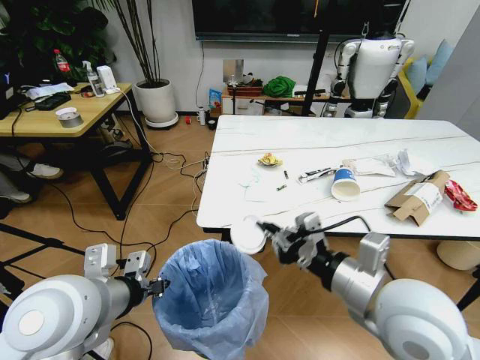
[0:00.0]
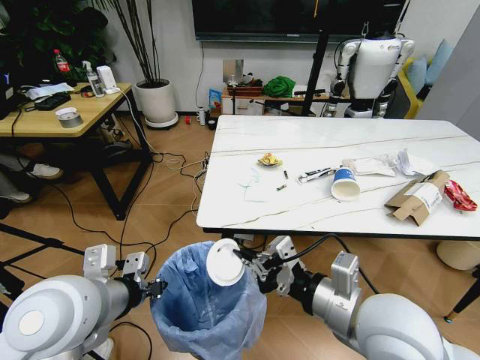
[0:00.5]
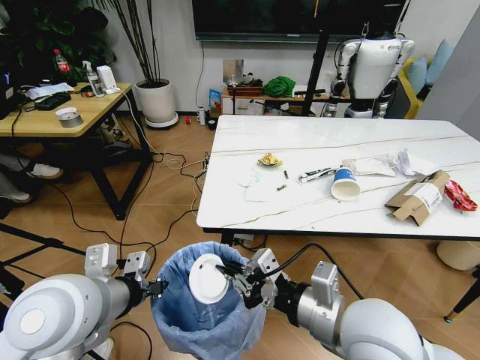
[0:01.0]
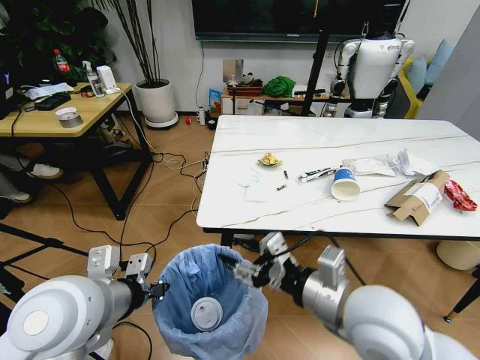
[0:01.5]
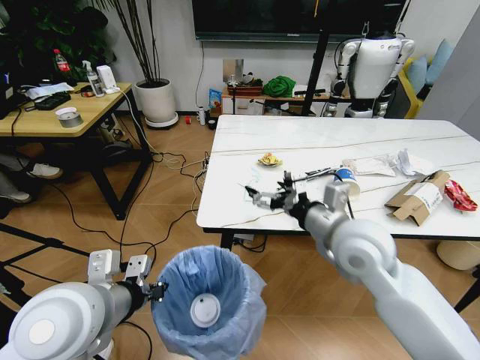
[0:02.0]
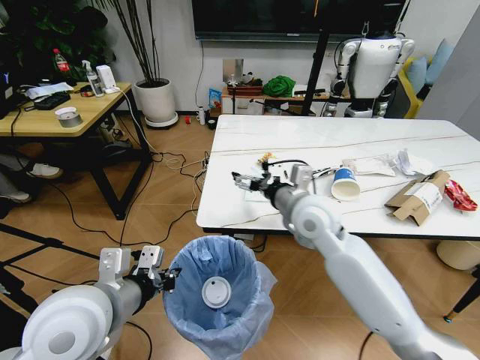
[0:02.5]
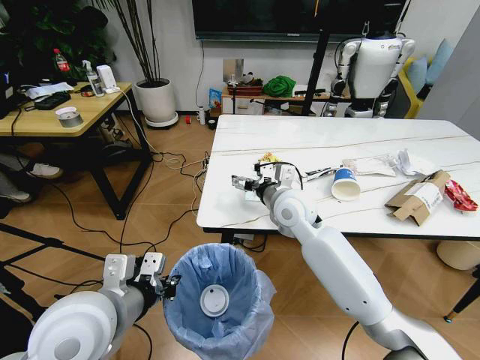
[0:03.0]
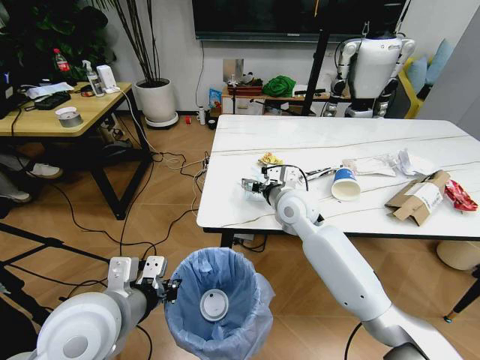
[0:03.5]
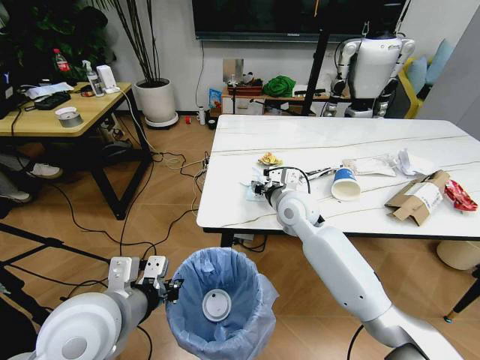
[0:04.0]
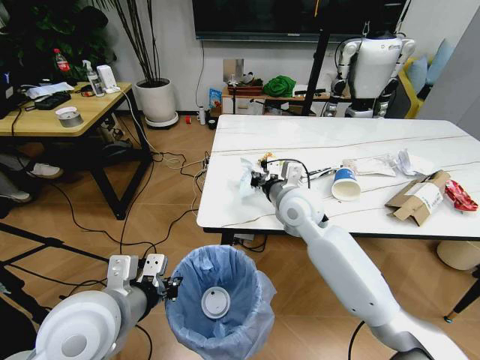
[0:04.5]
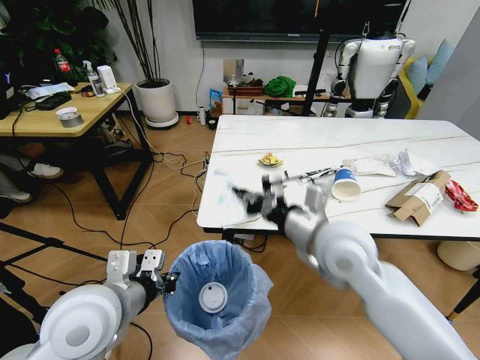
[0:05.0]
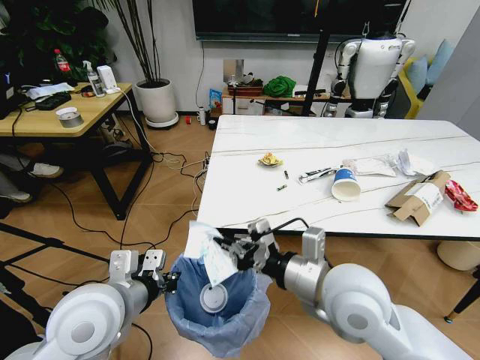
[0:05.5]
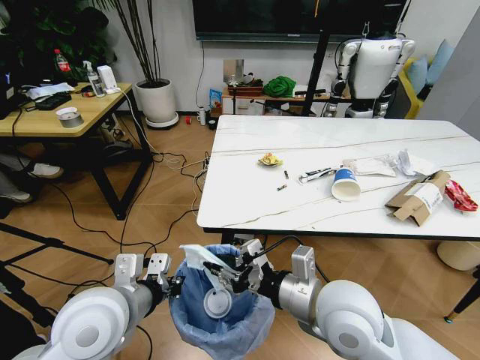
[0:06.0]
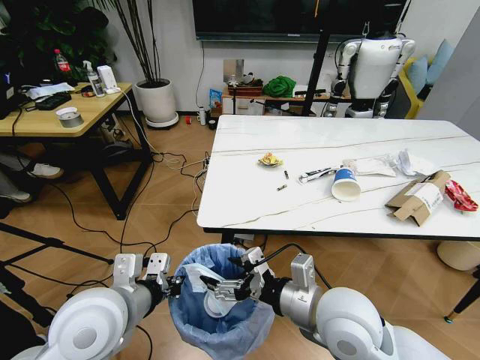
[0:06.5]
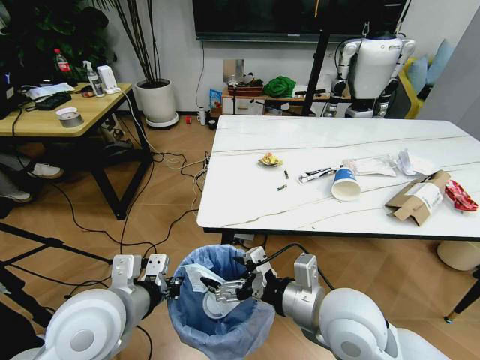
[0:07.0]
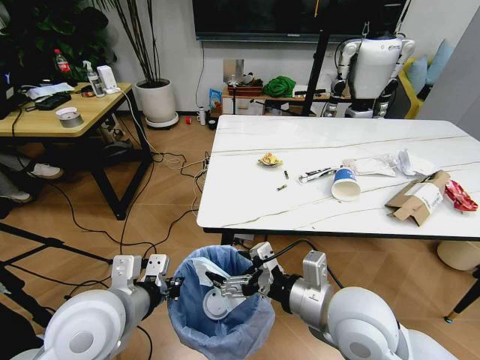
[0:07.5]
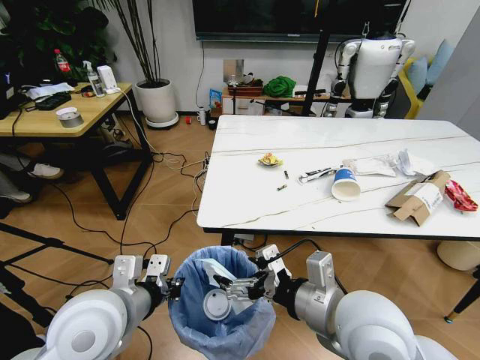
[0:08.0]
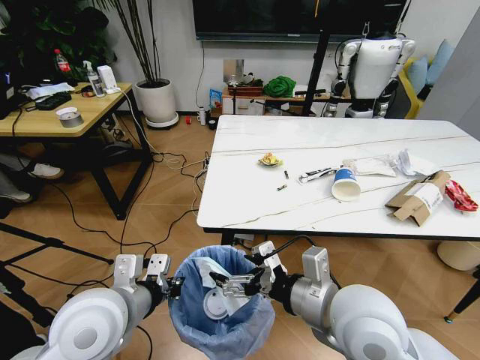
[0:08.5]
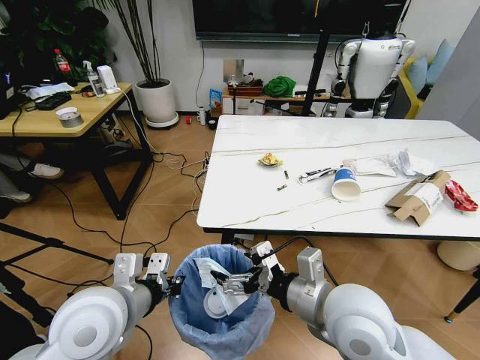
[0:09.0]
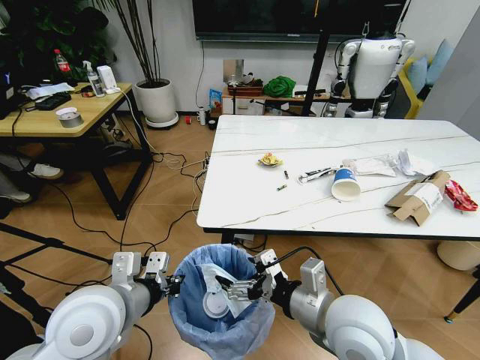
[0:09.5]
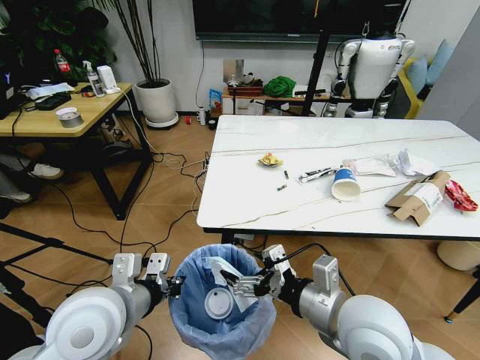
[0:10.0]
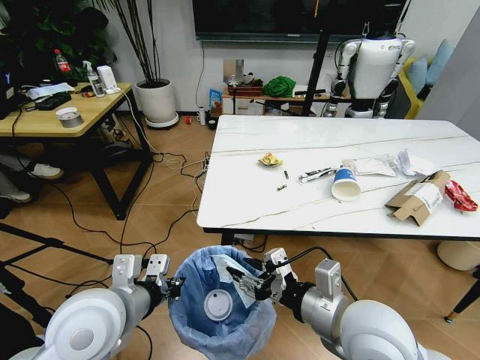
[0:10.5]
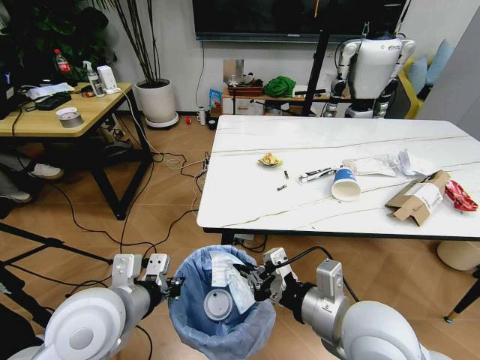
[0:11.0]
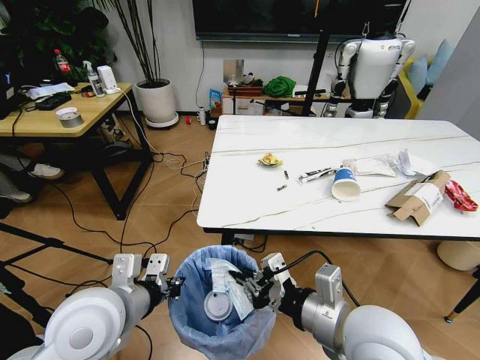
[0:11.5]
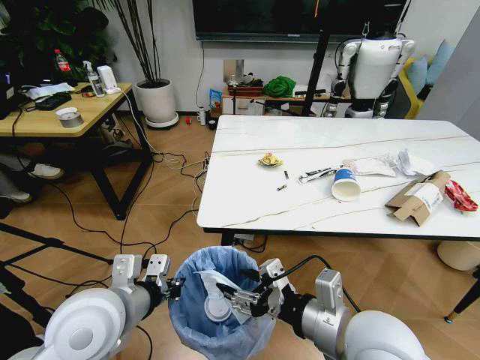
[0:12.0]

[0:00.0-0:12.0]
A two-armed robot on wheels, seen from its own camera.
Task of the whole recording: Pick up the trash bin and place the trash from the table into it.
0:00.0 to 0:02.0: The right gripper moves forward, some 10 cm, and opens.
0:02.0 to 0:04.0: The right gripper travels forward, downward and to the left by about 15 cm, and closes its fingers.
0:04.0 to 0:06.0: The right gripper moves backward, some 25 cm.
0:06.0 to 0:08.0: The right gripper opens up.
0:08.0 to 0:10.0: The grippers make only small movements.
0:10.0 to 0:12.0: The right gripper closes.

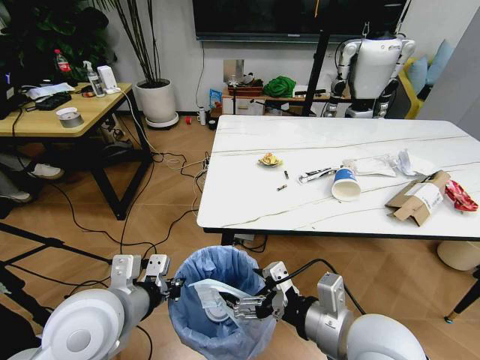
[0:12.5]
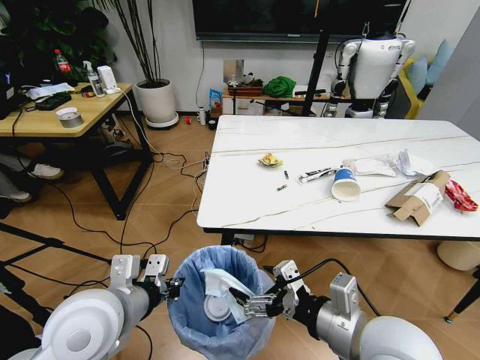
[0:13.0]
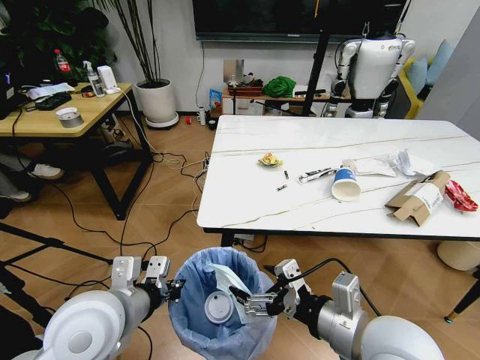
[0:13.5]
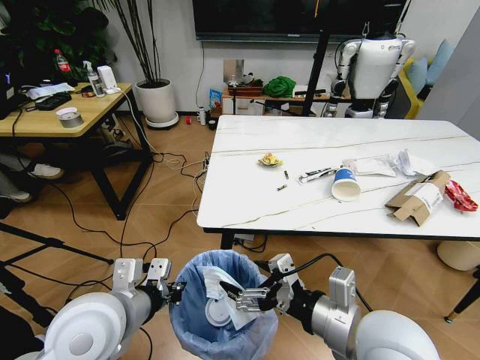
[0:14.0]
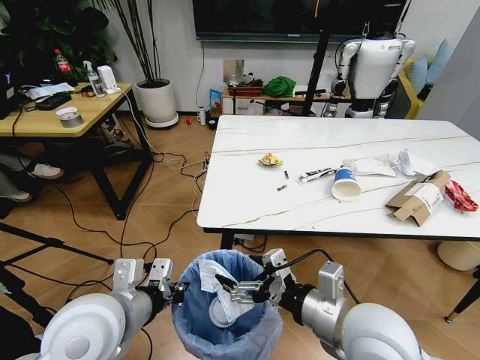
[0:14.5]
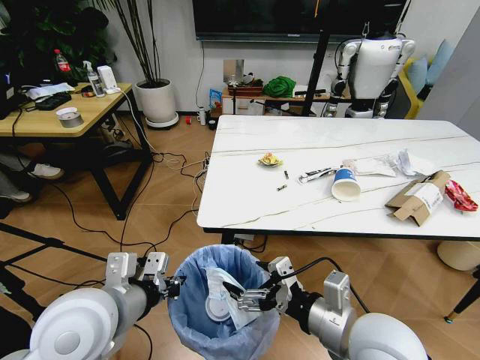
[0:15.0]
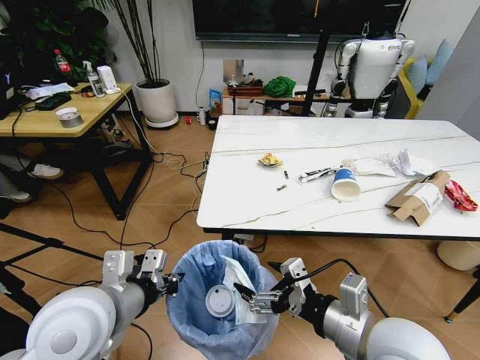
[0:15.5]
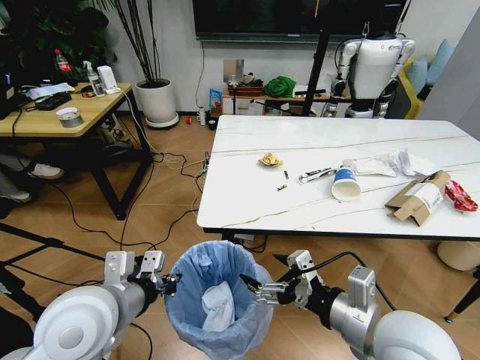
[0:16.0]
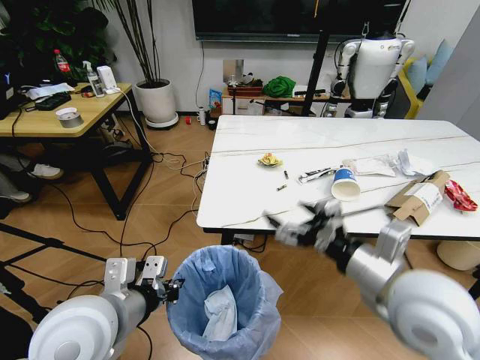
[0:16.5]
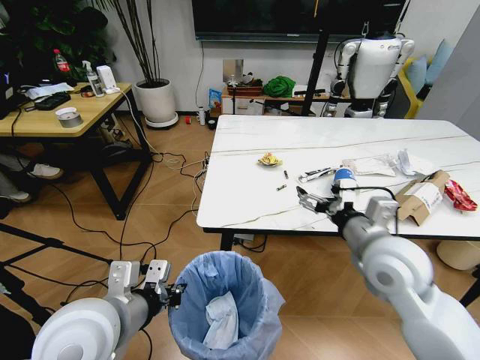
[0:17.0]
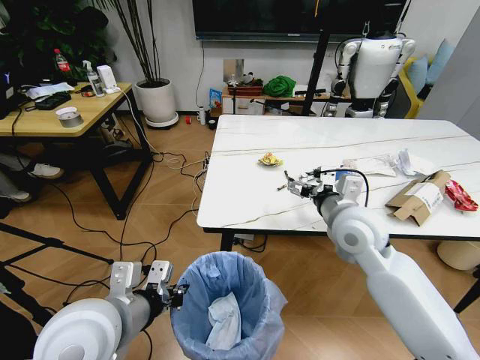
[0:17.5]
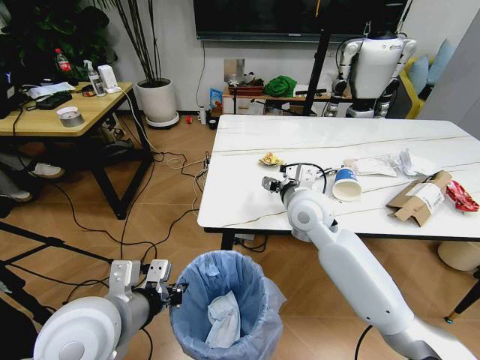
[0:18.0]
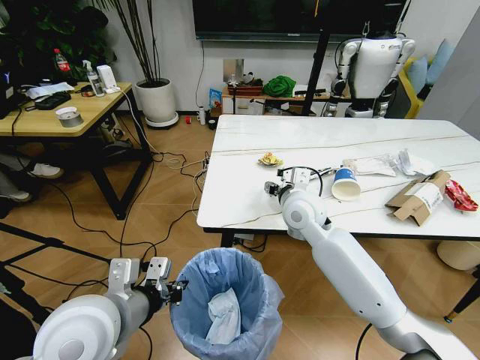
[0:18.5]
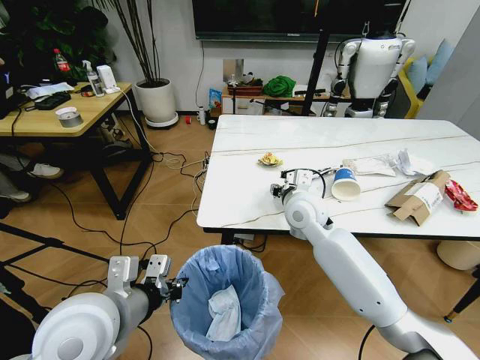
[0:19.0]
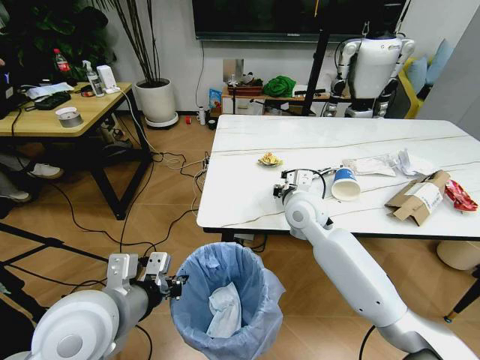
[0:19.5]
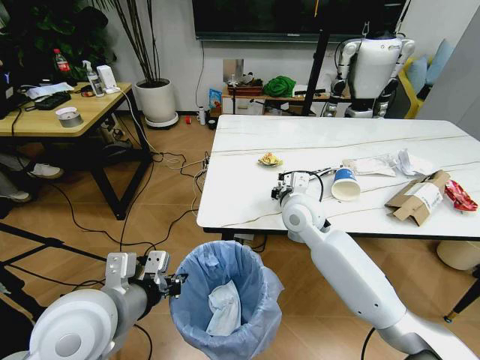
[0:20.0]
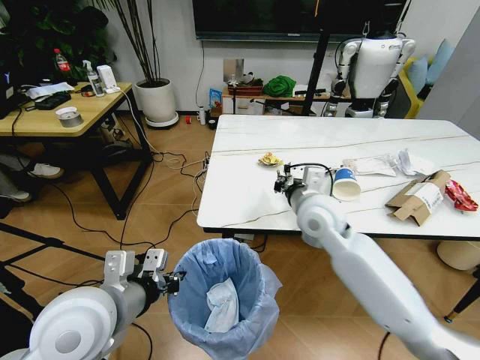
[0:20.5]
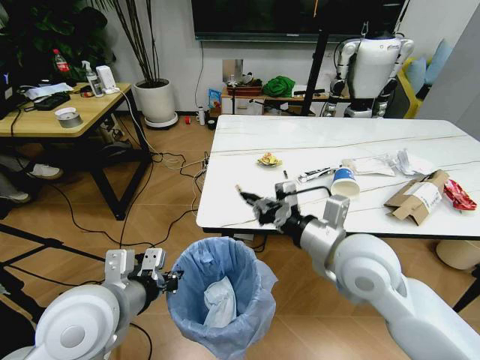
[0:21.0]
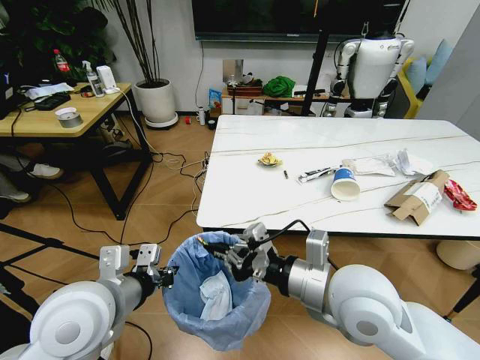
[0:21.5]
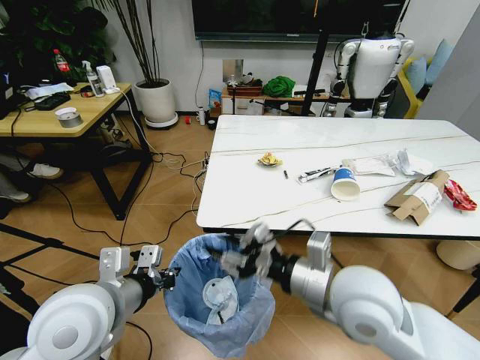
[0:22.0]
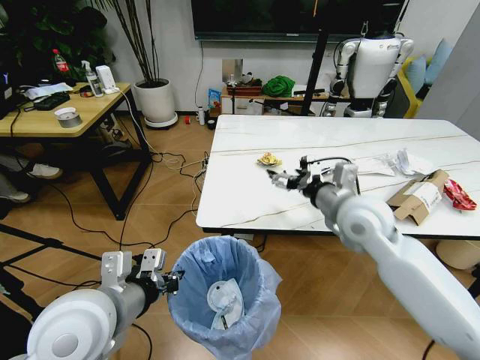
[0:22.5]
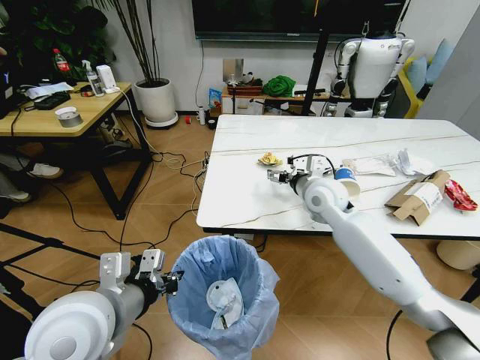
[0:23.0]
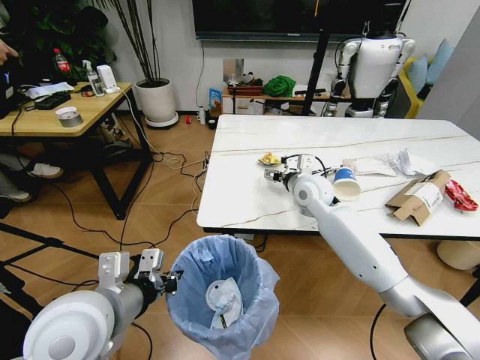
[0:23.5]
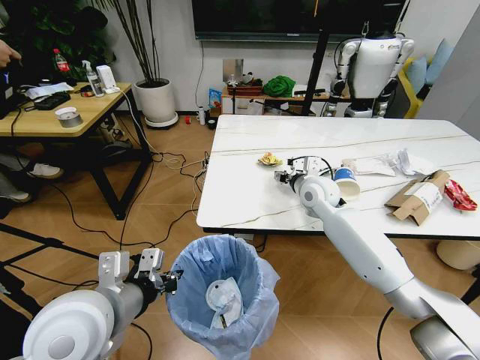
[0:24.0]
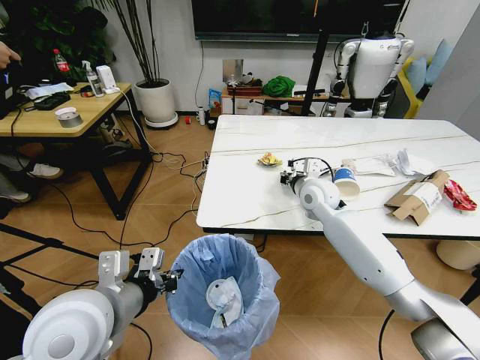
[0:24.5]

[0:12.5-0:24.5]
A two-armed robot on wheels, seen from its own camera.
Task of the whole recording: Pick up the trash bin and place the trash from the table into it.
0:12.5 to 0:14.5: There are only small adjustments of the grippers.
0:14.5 to 0:16.5: The right gripper is displaced to the right and upward by approximately 10 cm.
0:16.5 to 0:18.5: The right gripper travels forward and to the left by approximately 25 cm, and closes up.
0:18.5 to 0:20.5: The right gripper closes up.
0:20.5 to 0:22.5: The right gripper is displaced to the right by some 5 cm, reaches about 15 cm backward, then returns, and opens its fingers.
0:22.5 to 0:24.5: The right gripper goes approximately 15 cm forward and downward, and closes.

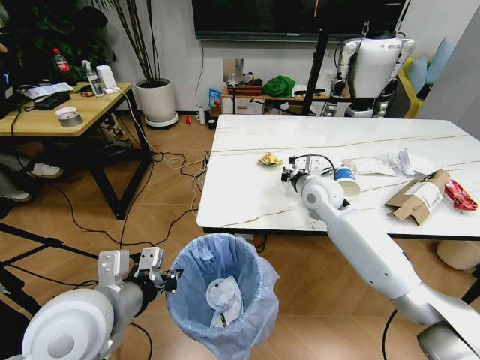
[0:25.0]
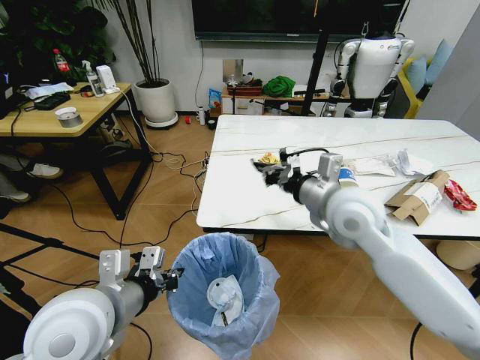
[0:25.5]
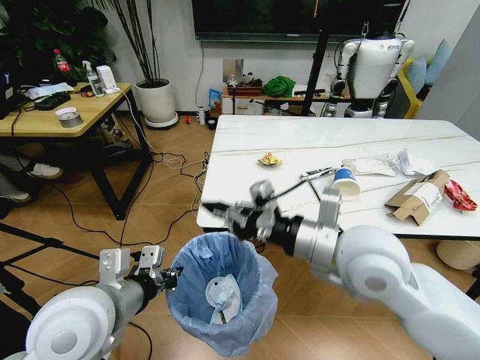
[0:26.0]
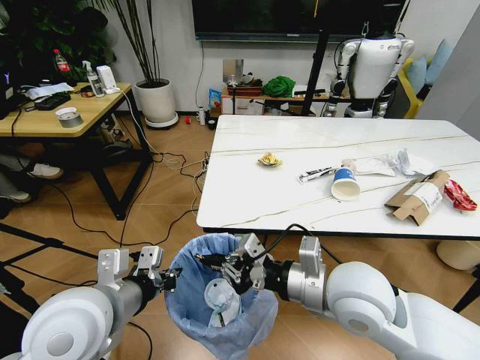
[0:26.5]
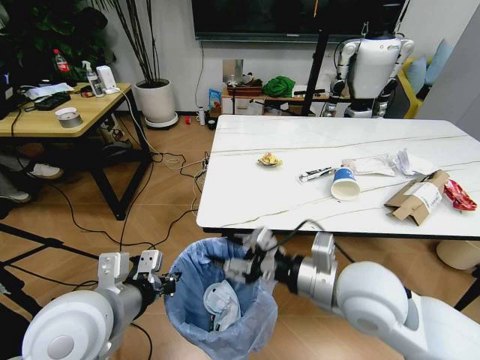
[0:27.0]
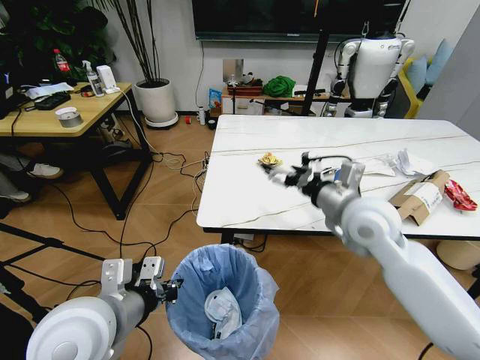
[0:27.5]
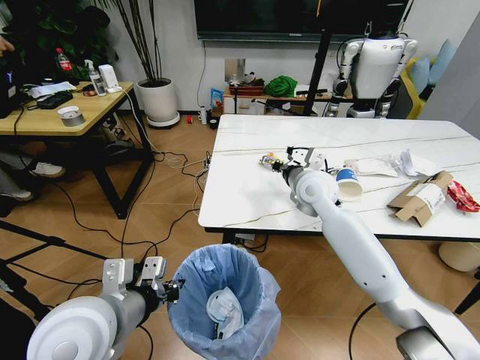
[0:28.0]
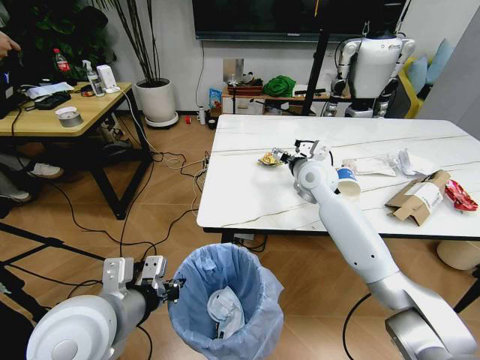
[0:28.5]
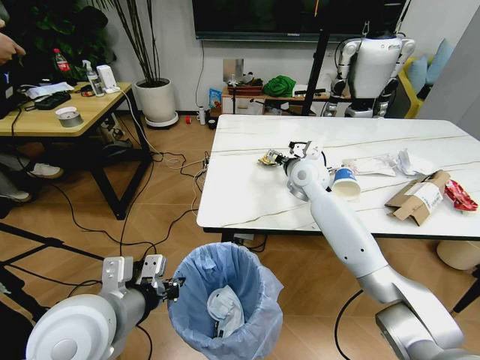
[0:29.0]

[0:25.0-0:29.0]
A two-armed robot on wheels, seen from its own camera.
Task of the whole recording: Pick up the trash bin and place the trash from the table into it.
0:25.0 to 0:27.0: The right gripper is displaced backward by about 25 cm, and opens up.
0:27.0 to 0:29.0: The right gripper is displaced forward by about 30 cm, and opens its fingers.
